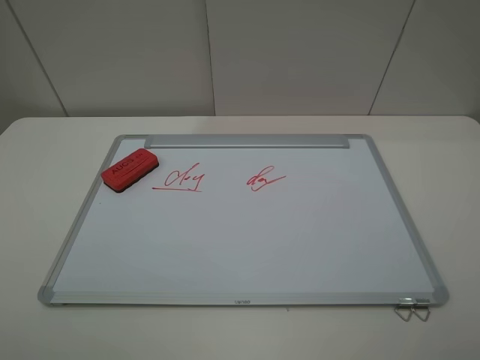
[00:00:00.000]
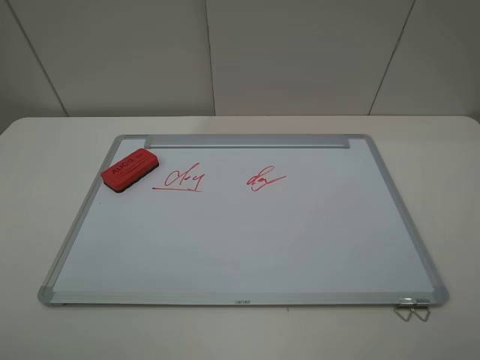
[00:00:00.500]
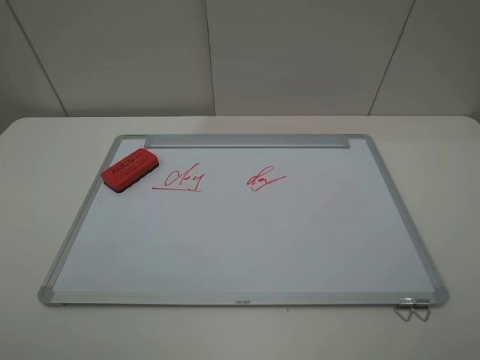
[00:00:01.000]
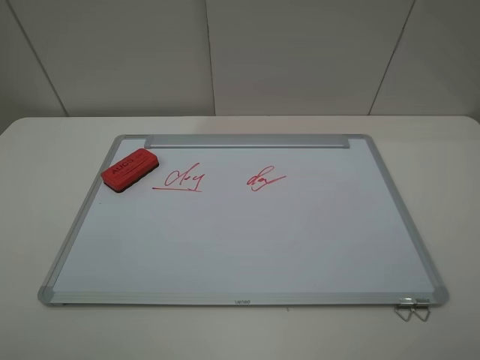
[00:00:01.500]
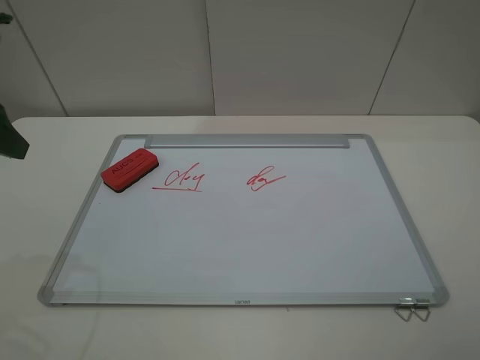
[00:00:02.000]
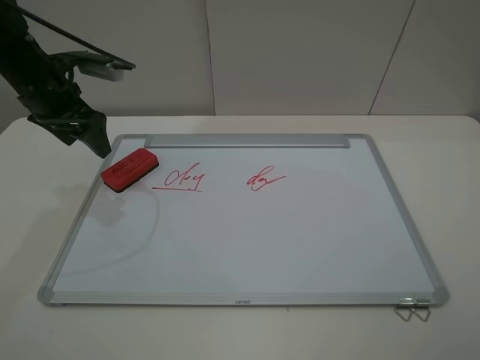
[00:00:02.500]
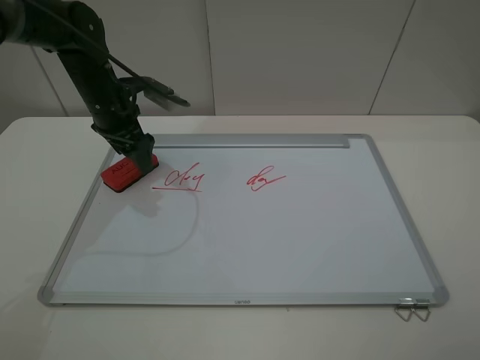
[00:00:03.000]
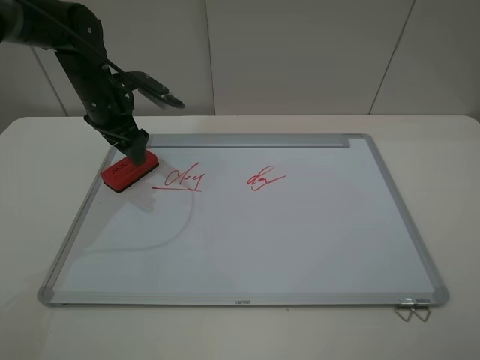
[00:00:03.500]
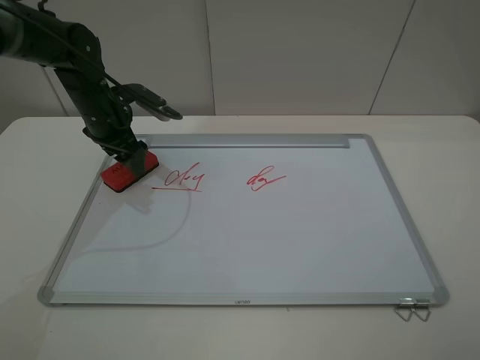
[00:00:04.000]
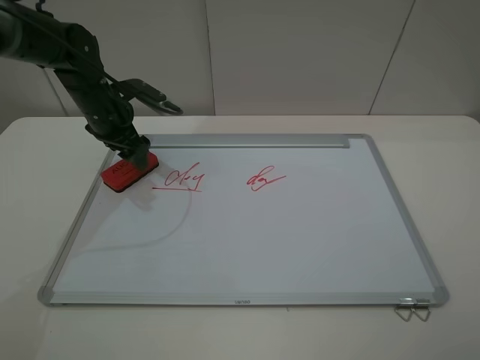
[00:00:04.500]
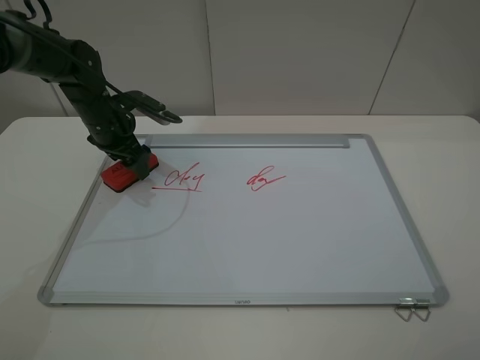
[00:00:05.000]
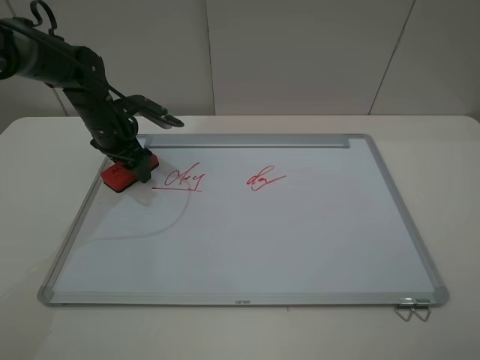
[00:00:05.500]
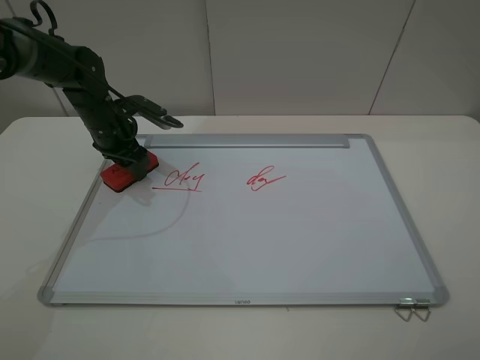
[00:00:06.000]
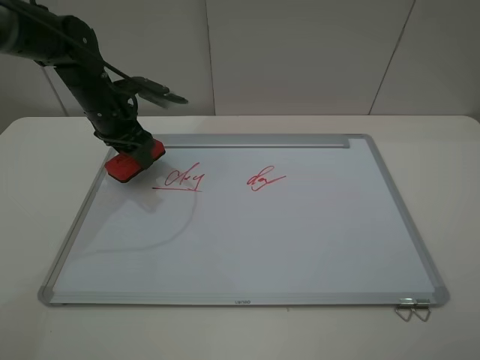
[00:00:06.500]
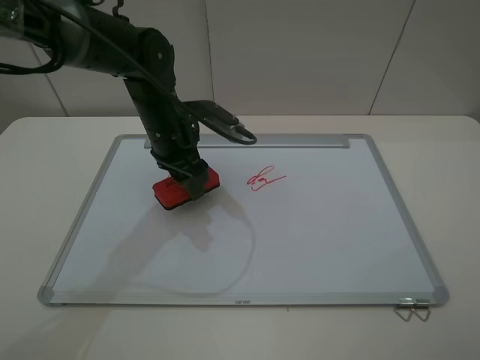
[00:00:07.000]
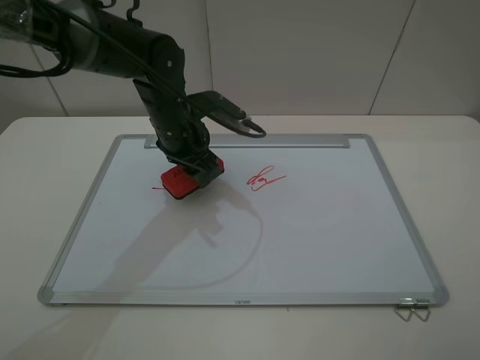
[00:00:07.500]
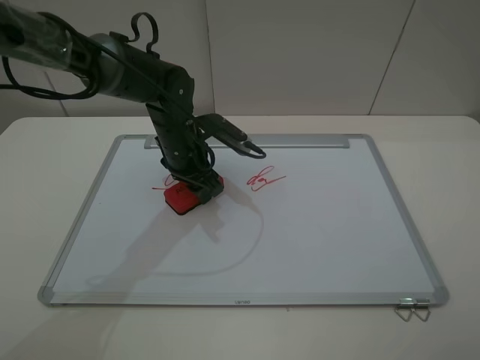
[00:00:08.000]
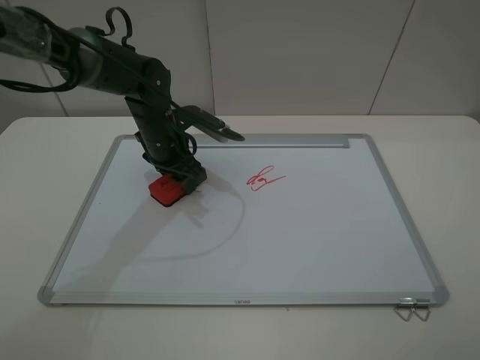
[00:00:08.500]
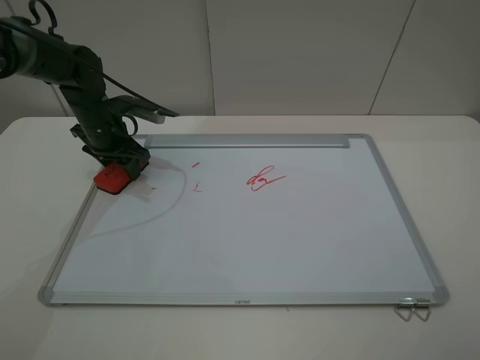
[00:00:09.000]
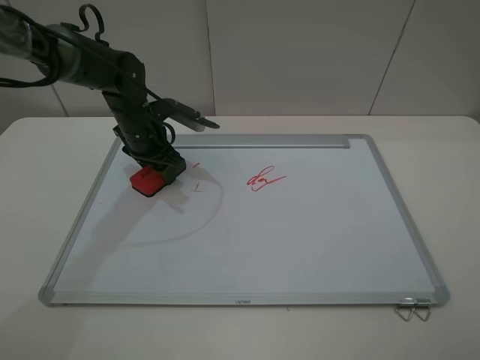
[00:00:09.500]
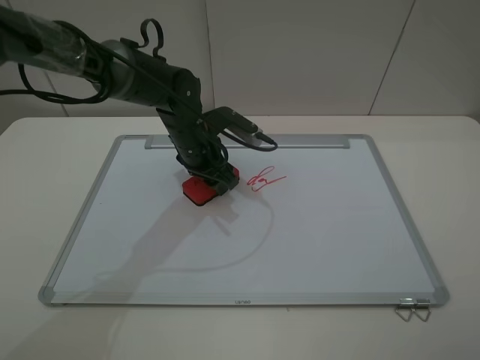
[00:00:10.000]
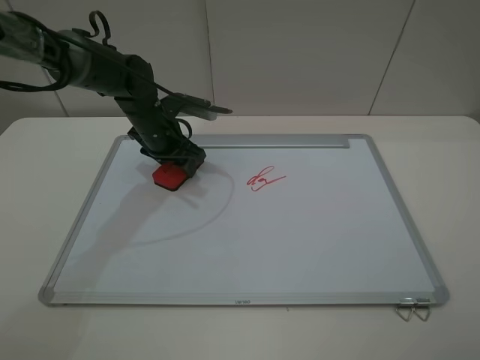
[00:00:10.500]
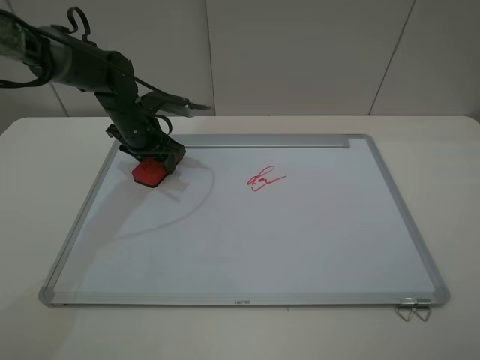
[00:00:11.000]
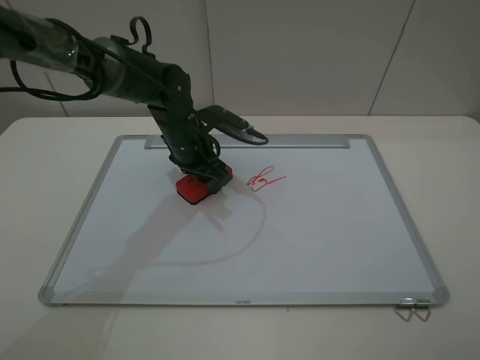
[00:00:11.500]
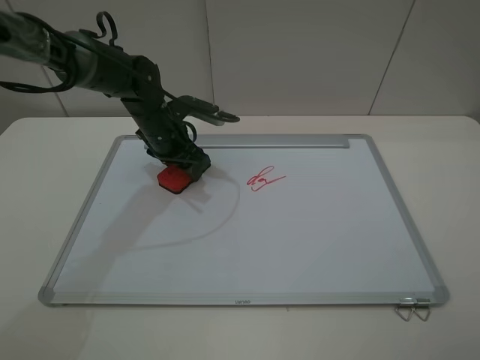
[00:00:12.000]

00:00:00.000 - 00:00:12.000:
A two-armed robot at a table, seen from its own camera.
Step, 00:00:00.000 - 00:00:05.500: Grasp the eraser with the left gripper.
00:00:02.000 - 00:00:04.000: The left gripper is displaced forward, downward and to the right by some 25 cm.
00:00:04.000 - 00:00:06.000: The left gripper closes.
00:00:06.000 - 00:00:08.000: The left gripper goes about 15 cm to the right and backward.
00:00:08.000 - 00:00:10.000: The left gripper goes to the left and returns, roughly 15 cm each way.
00:00:10.000 - 00:00:12.000: The left gripper goes left and right, approximately 10 cm each way, reversing 2 times.

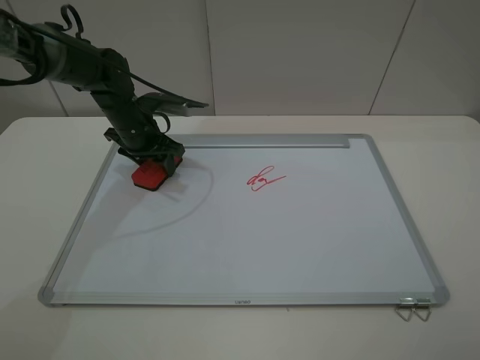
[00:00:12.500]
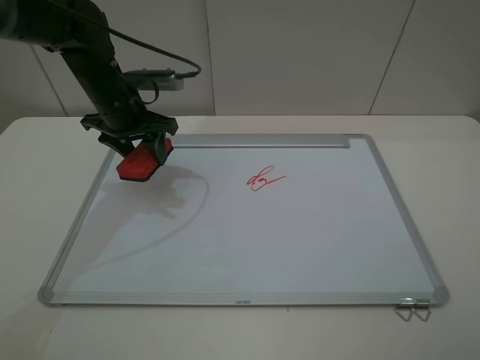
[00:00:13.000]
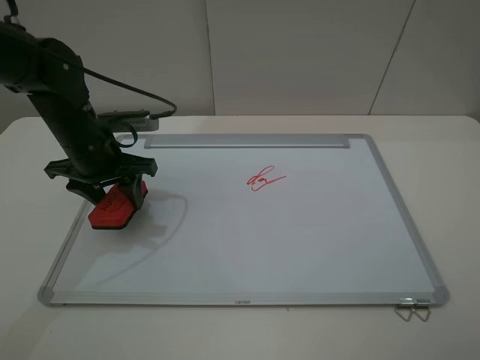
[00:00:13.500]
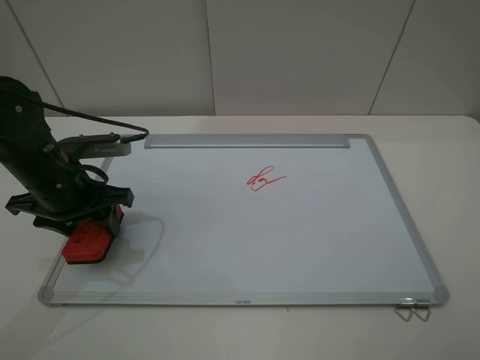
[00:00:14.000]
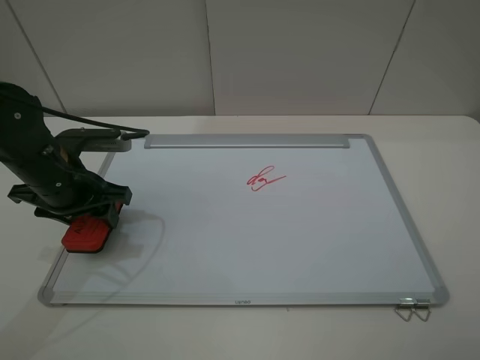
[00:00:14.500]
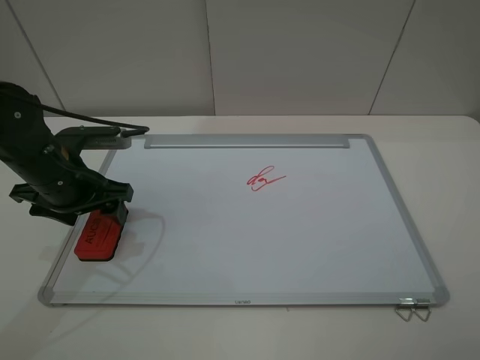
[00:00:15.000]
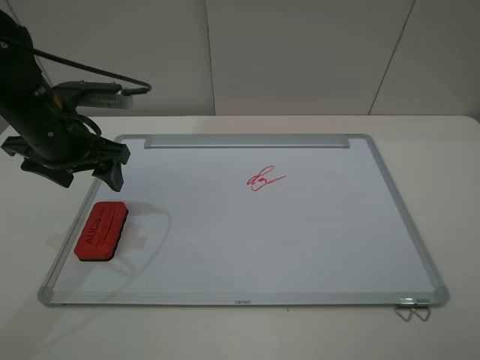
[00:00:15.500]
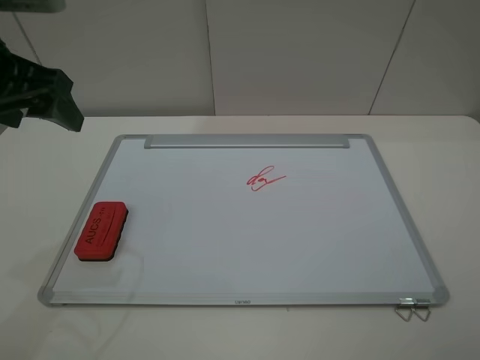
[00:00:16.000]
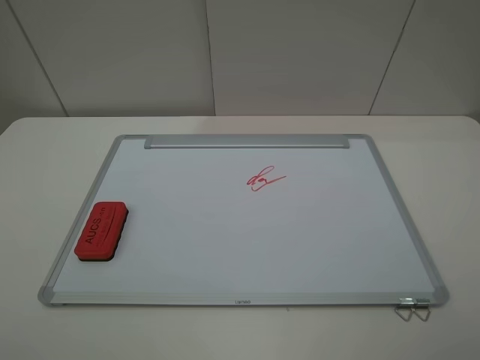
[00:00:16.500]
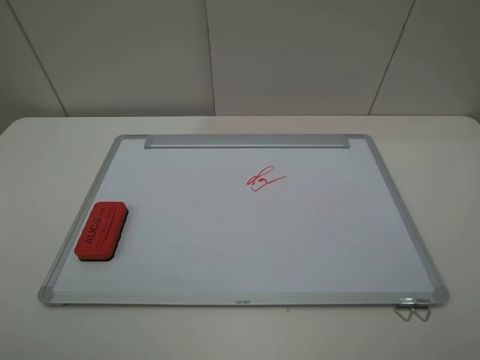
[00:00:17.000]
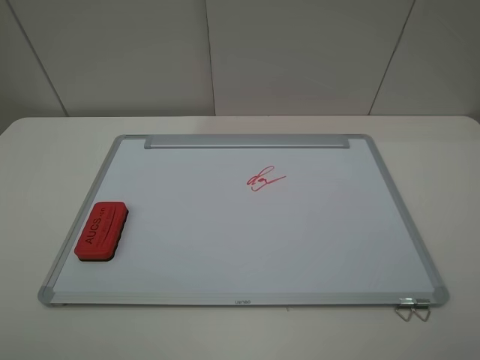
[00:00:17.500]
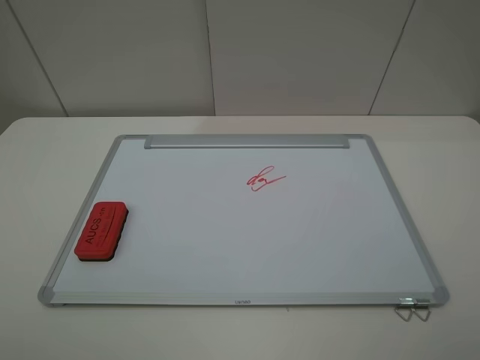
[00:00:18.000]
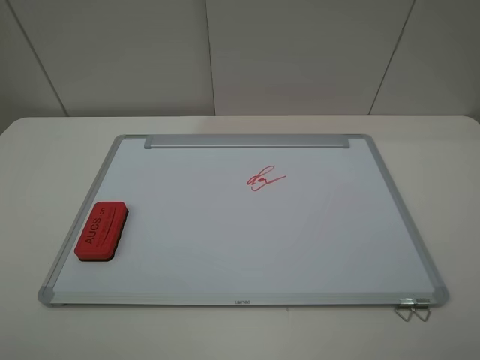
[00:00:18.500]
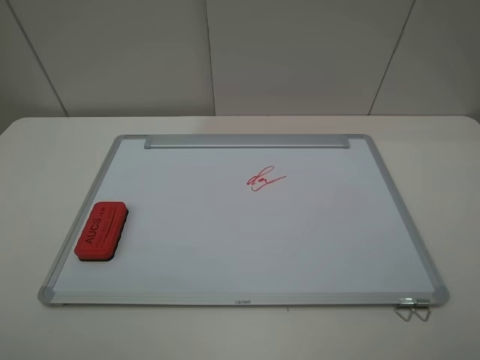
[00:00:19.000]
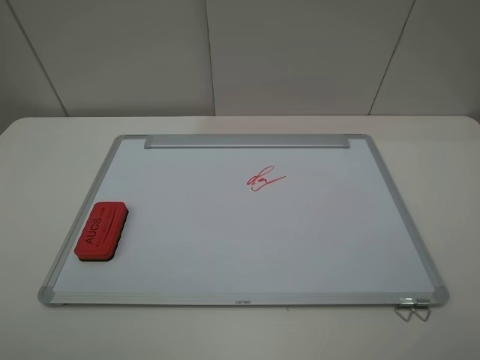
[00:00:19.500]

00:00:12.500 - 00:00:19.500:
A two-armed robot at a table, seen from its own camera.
Step, 00:00:13.000 - 00:00:15.000: Place the eraser with the left gripper.
00:00:12.500 - 00:00:14.500: The left gripper travels backward by some 15 cm.
00:00:14.500 - 00:00:16.000: The left gripper shifts some 20 cm upward, and opens its fingers.
00:00:16.000 - 00:00:17.500: The left gripper travels backward by some 25 cm.
